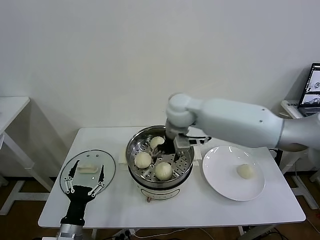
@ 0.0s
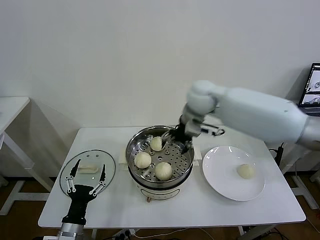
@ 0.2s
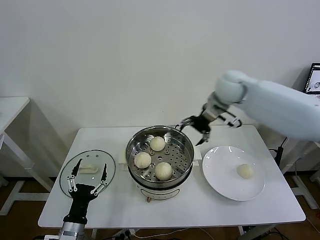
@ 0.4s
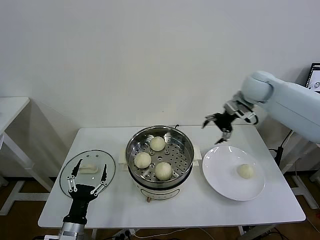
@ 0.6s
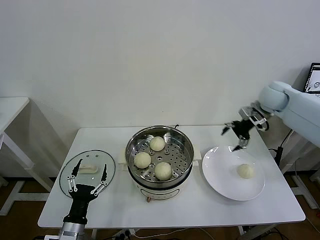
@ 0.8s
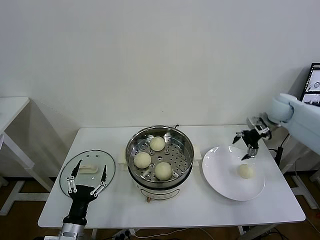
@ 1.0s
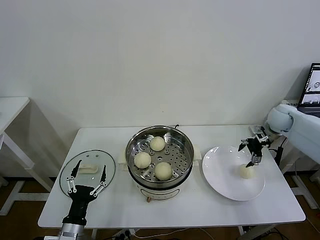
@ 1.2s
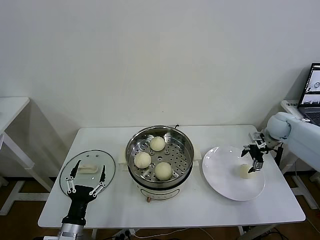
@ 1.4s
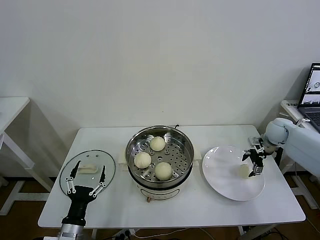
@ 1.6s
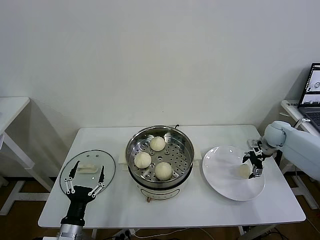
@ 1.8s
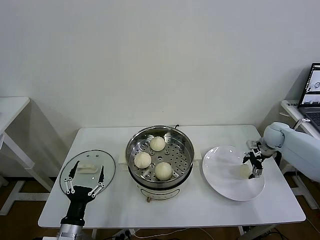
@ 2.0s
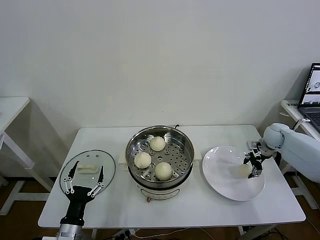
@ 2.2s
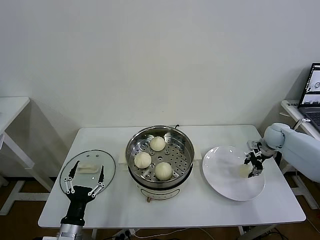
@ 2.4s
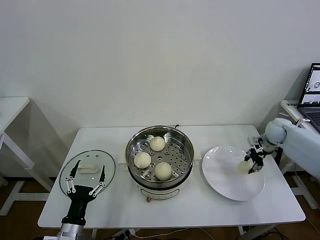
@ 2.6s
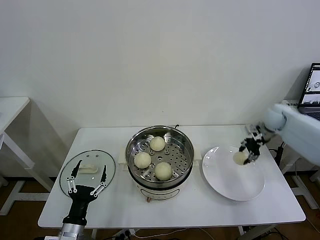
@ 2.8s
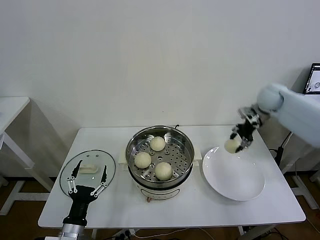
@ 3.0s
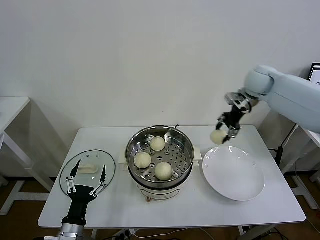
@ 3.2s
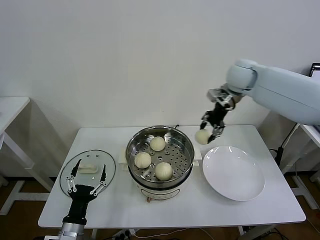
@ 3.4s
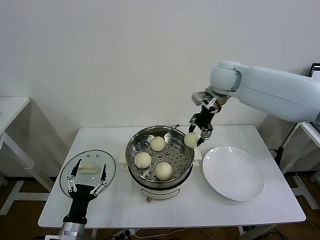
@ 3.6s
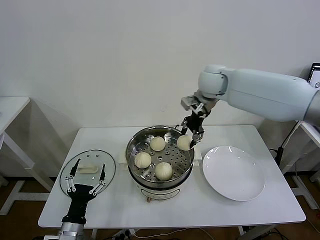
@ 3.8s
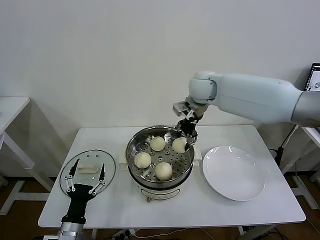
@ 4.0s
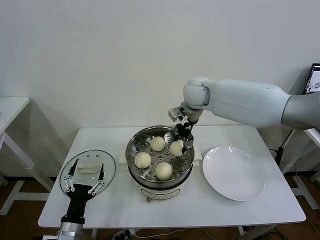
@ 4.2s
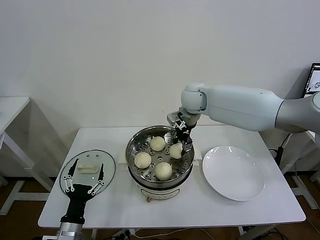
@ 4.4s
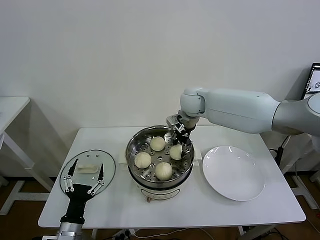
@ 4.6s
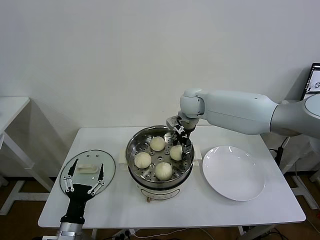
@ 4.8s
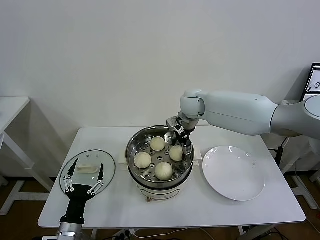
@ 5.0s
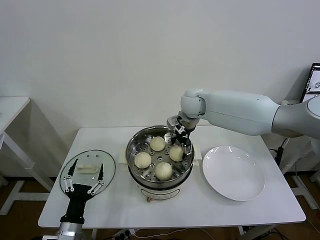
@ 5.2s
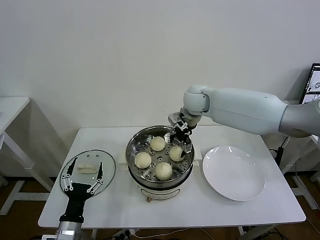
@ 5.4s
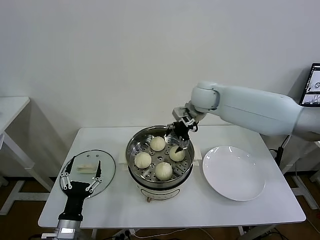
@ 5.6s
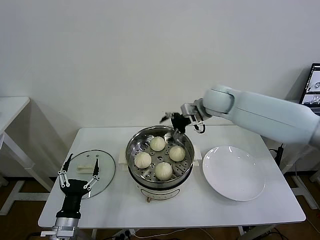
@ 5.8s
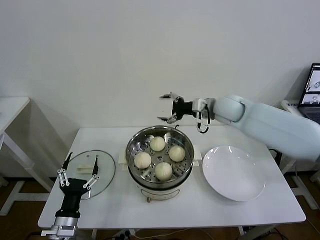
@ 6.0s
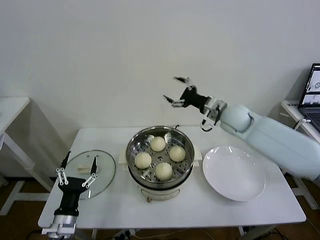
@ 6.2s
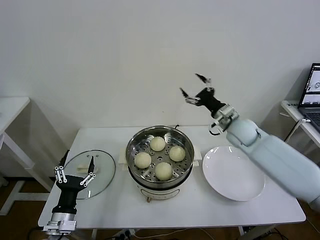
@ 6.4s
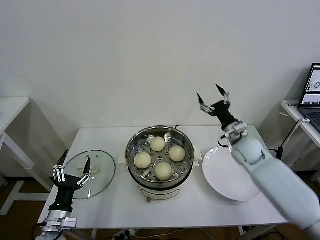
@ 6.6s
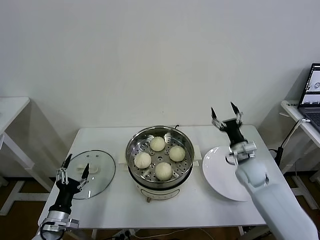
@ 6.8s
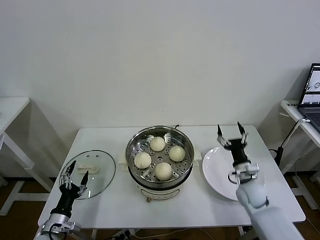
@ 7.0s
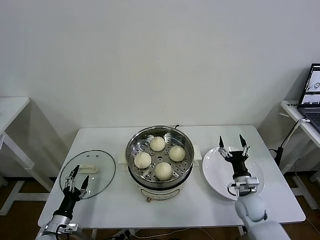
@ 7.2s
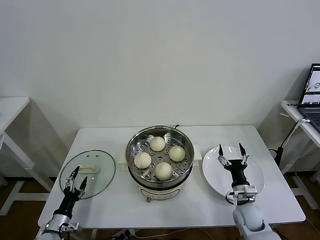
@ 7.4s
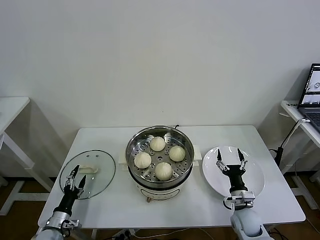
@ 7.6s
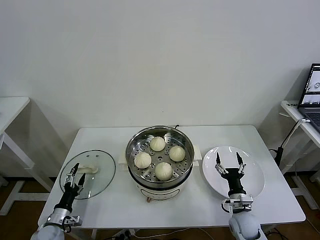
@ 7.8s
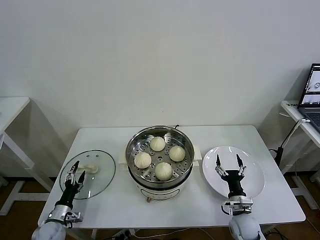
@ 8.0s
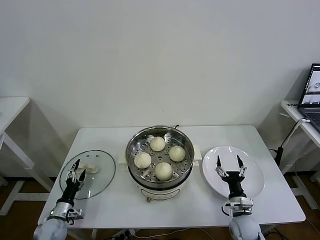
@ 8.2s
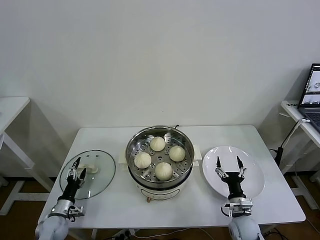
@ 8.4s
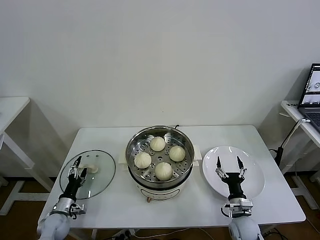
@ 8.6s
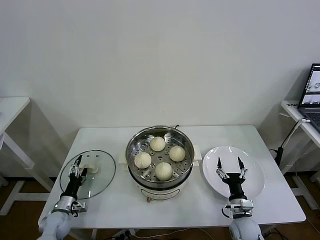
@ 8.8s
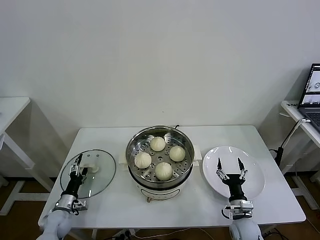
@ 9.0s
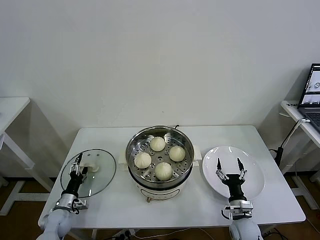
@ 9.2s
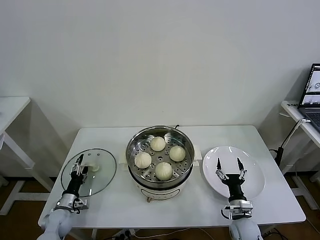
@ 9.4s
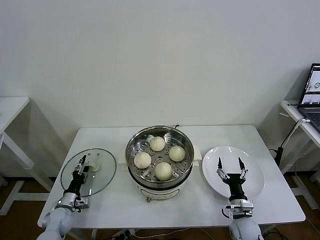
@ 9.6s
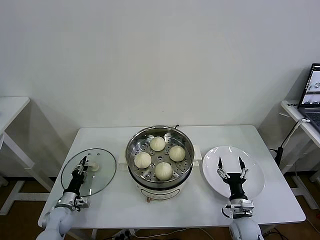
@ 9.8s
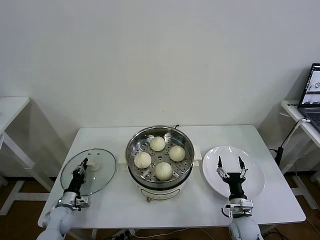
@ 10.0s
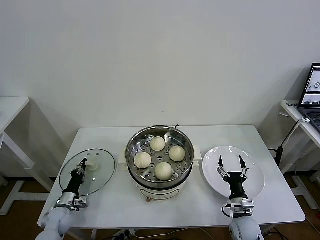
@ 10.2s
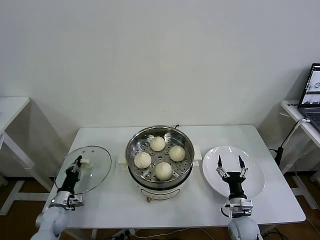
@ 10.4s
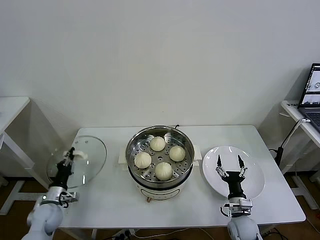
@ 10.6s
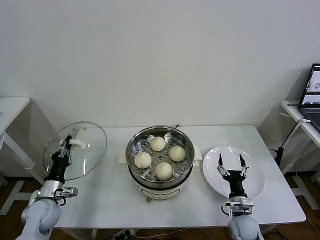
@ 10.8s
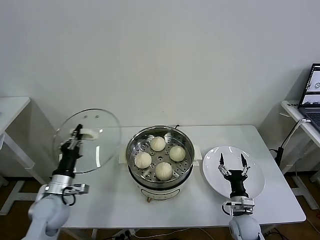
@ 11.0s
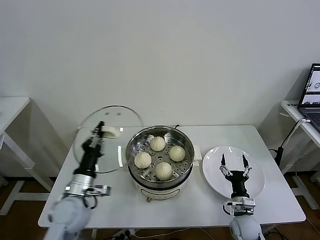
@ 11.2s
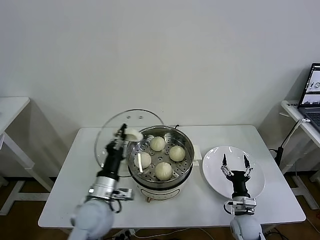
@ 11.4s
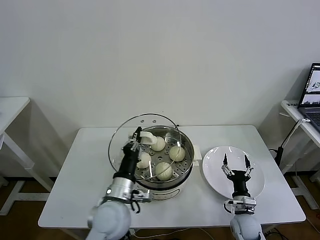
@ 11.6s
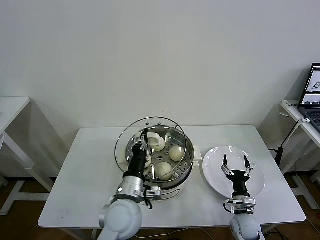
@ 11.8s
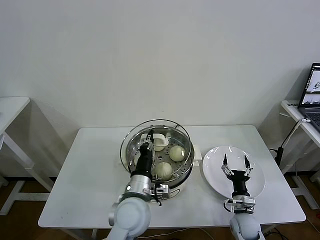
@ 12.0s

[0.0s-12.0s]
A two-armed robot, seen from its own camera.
Task of the whole recording: take steamed baozi put them in steamer then cover it.
Step, 0.0s to 2.2s: Grasp the baozi in the plate with right gripper.
Step, 2.4s to 5.2s: Place the baozi on the steamer with right gripper.
Step, 5.4s to 10.2s: Grasp the pot lid with left gripper.
0.0s to 1.6s: The right gripper travels to the right and downward by about 40 cm.
1.6s to 3.0s: The right gripper goes about 15 cm upward and to the left, and closes.
3.0s to 4.4s: The right gripper travels to the left by about 25 cm.
4.4s to 6.0s: The right gripper travels to the right by some 10 cm, and opens its fingers.
6.0s to 7.6s: The right gripper goes some 40 cm downward and backward; the left gripper heads downward and to the left, covering about 15 cm.
7.6s to 9.0s: The left gripper moves forward, about 5 cm.
9.0s to 10.4s: The left gripper closes up.
10.4s to 12.0s: The left gripper shifts some 40 cm to the right and upward.

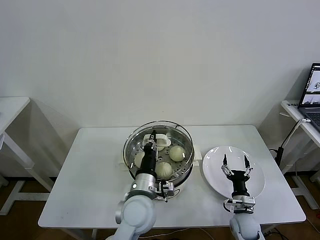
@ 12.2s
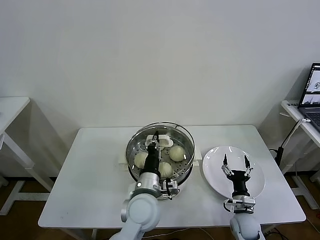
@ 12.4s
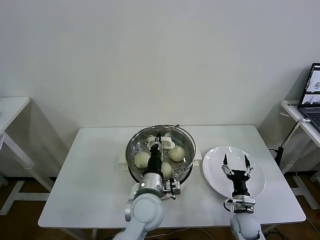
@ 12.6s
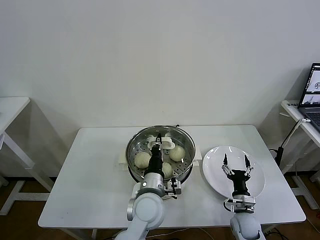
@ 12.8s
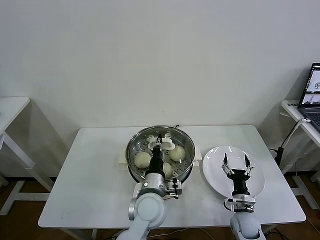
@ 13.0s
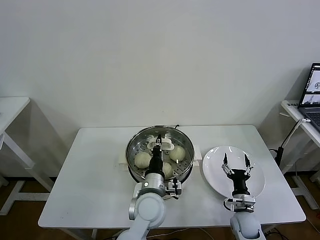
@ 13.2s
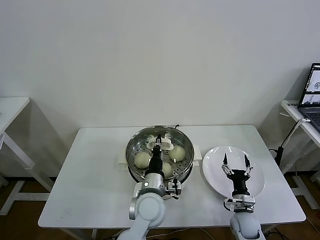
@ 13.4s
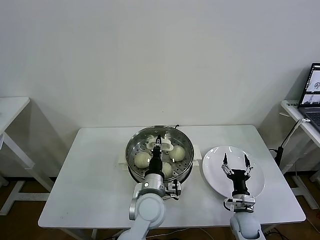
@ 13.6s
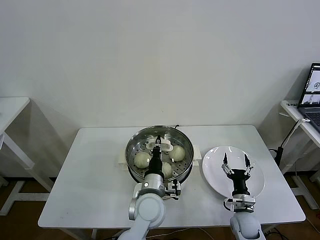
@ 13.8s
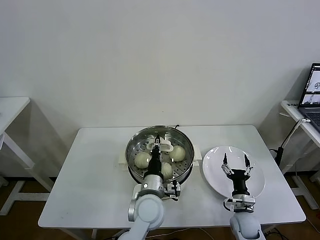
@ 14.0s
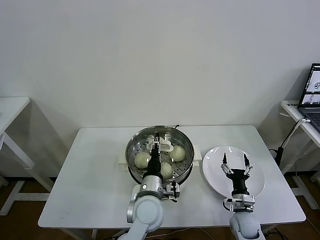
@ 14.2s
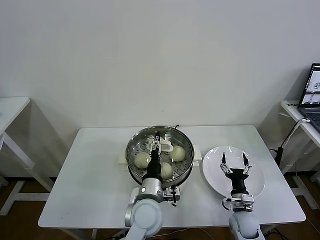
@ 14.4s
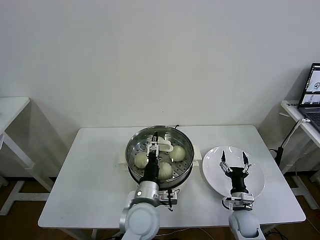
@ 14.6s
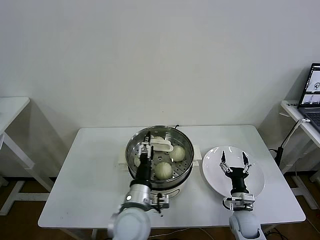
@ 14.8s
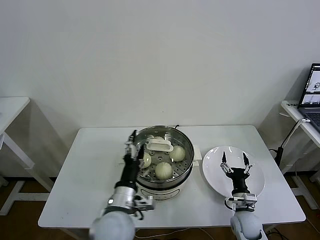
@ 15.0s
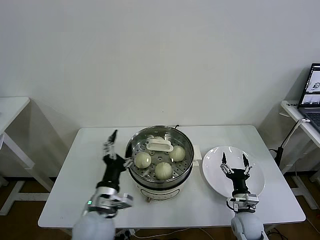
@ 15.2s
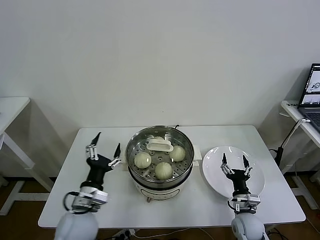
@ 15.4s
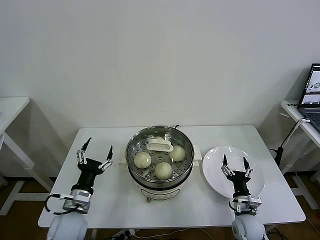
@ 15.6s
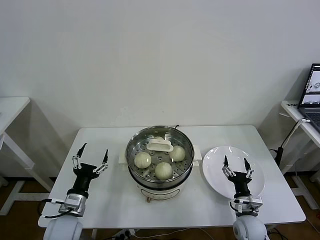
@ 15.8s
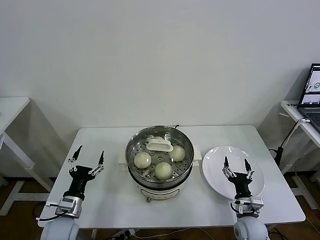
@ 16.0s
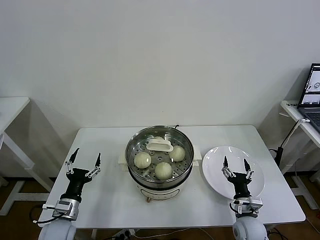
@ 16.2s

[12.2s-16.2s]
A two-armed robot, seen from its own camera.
Task of the whole recording: take steamed baozi put them in steamer then cover it.
12.2s to 13.6s: The left gripper shifts by roughly 5 cm.
13.6s to 14.8s: The left gripper ends up approximately 5 cm from where it was, and opens up.
14.8s to 16.2s: The left gripper shifts approximately 25 cm to the left.
